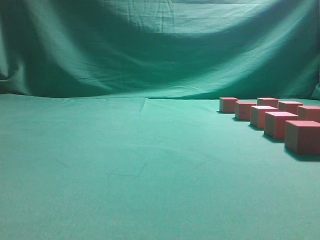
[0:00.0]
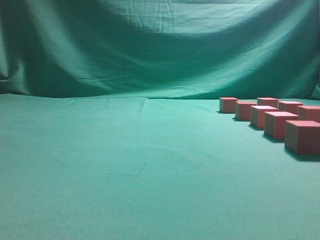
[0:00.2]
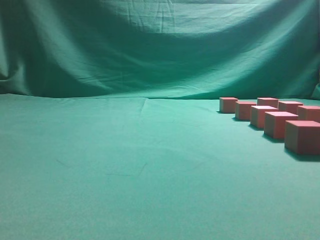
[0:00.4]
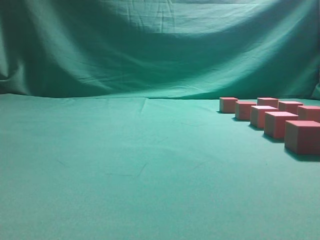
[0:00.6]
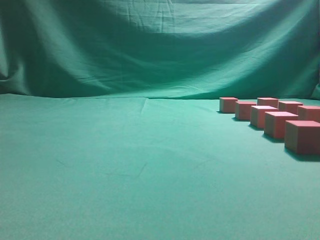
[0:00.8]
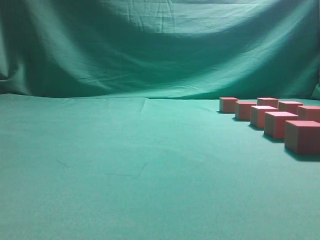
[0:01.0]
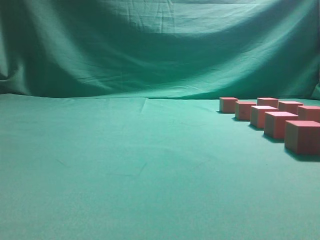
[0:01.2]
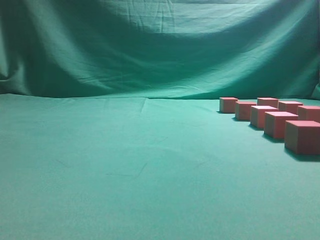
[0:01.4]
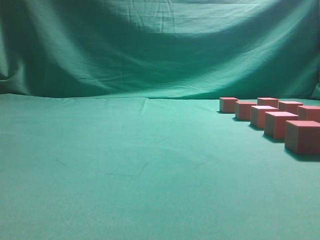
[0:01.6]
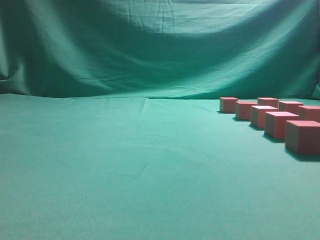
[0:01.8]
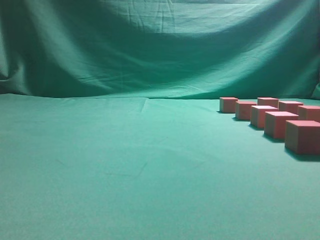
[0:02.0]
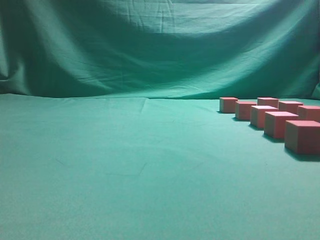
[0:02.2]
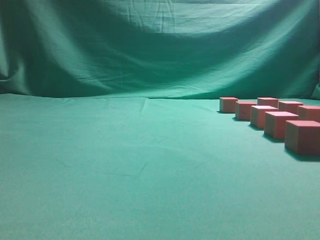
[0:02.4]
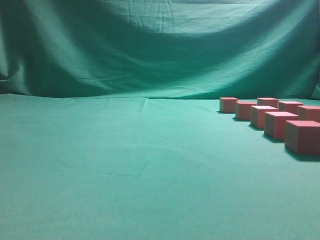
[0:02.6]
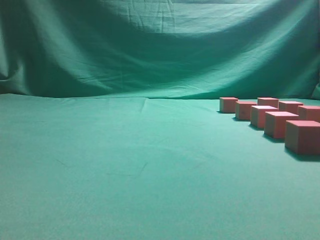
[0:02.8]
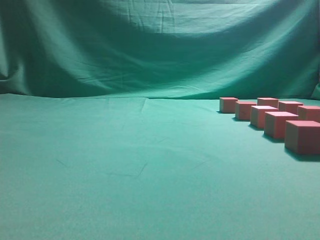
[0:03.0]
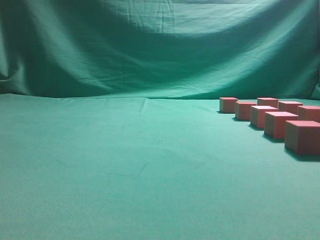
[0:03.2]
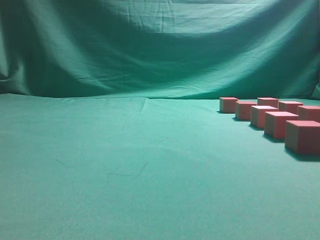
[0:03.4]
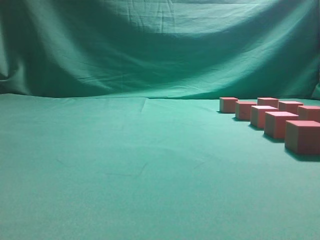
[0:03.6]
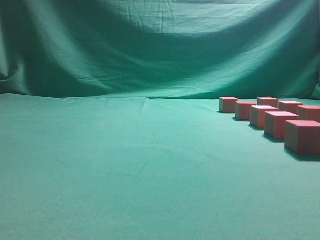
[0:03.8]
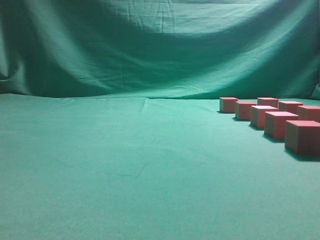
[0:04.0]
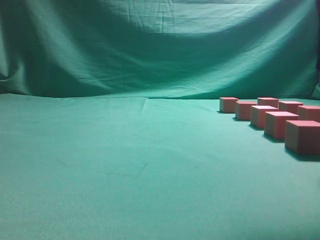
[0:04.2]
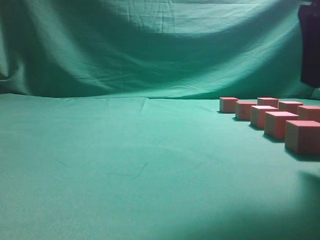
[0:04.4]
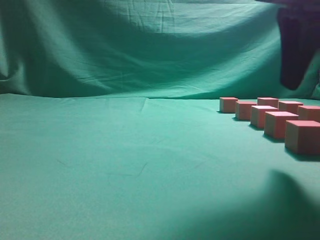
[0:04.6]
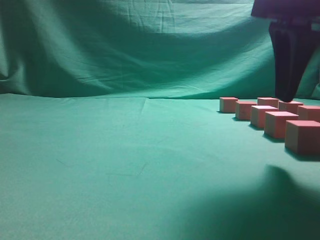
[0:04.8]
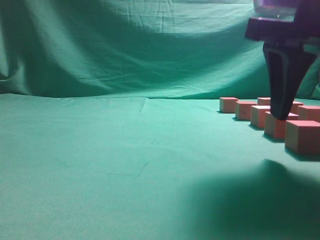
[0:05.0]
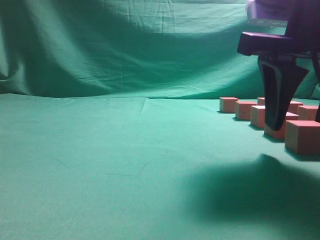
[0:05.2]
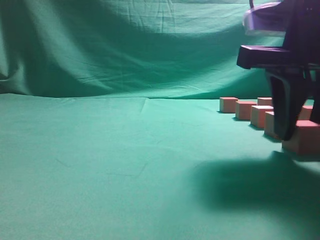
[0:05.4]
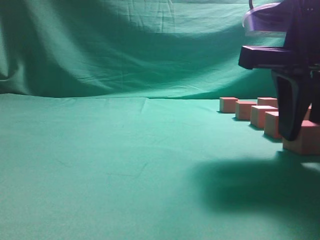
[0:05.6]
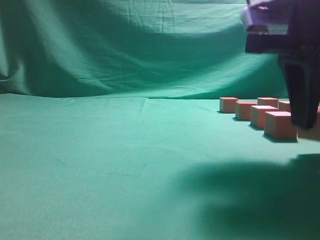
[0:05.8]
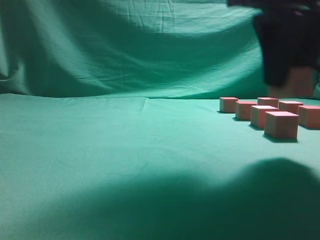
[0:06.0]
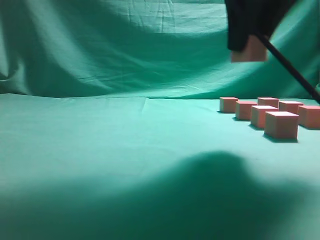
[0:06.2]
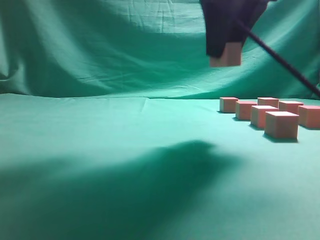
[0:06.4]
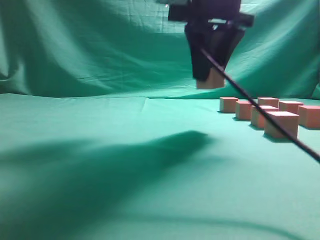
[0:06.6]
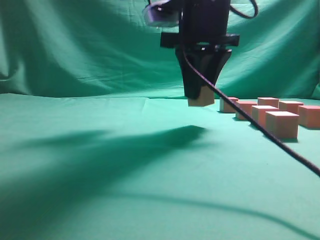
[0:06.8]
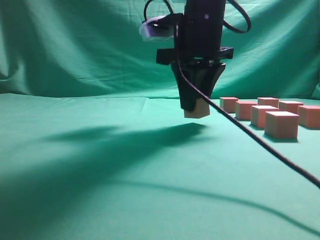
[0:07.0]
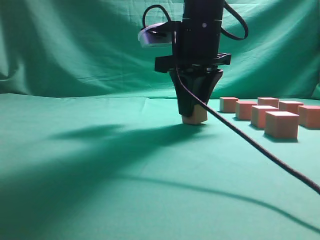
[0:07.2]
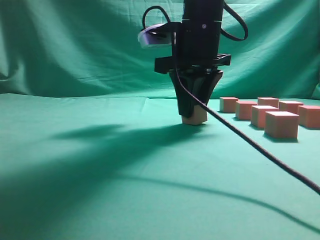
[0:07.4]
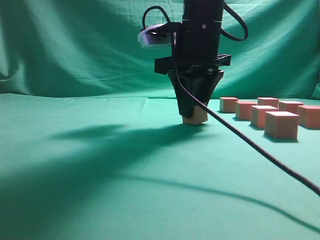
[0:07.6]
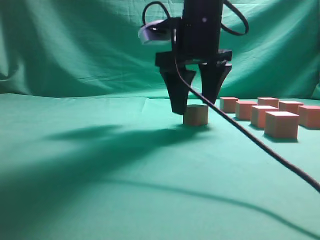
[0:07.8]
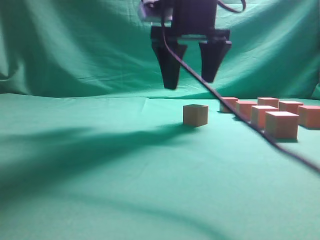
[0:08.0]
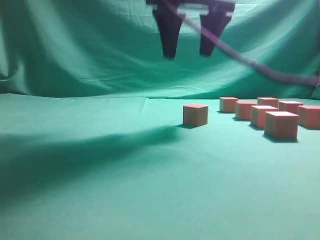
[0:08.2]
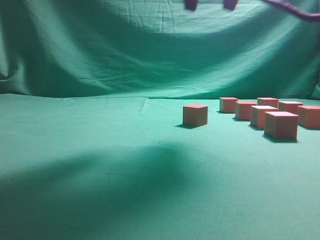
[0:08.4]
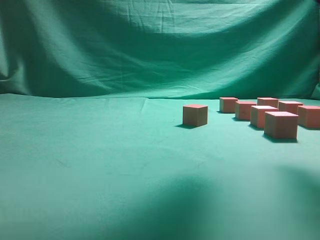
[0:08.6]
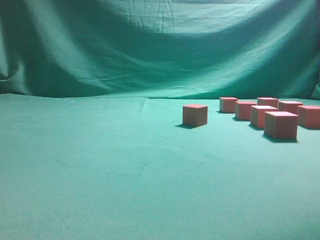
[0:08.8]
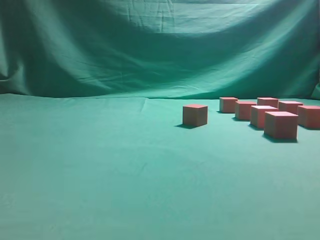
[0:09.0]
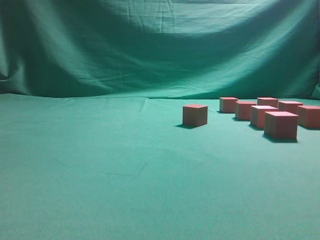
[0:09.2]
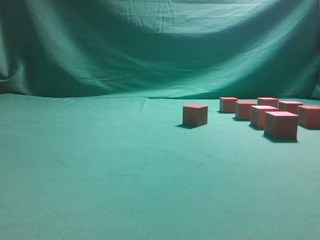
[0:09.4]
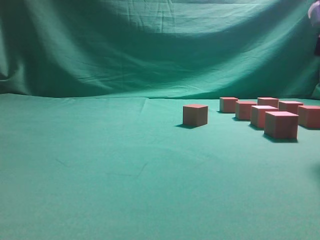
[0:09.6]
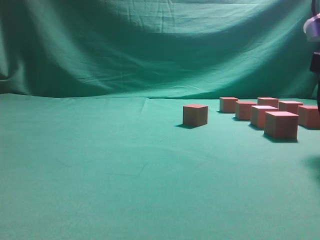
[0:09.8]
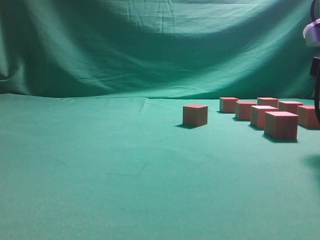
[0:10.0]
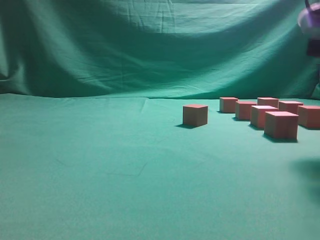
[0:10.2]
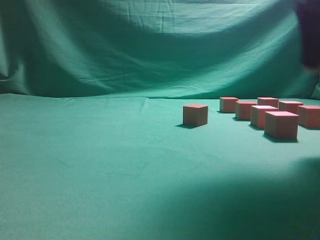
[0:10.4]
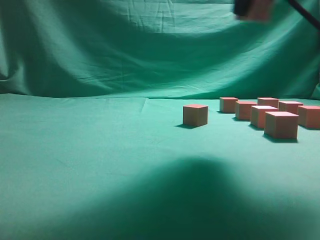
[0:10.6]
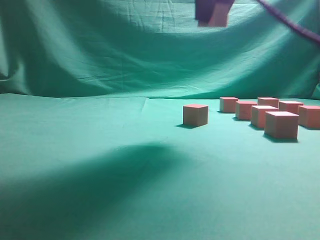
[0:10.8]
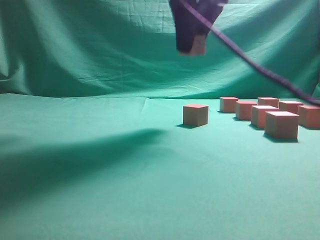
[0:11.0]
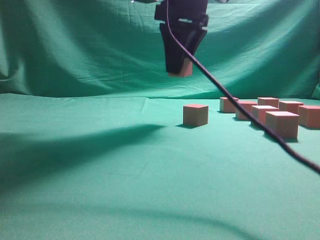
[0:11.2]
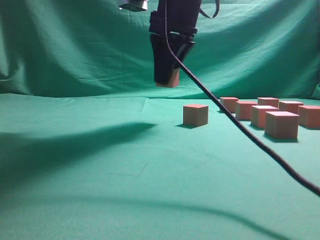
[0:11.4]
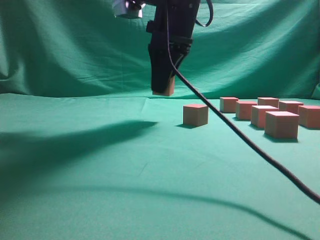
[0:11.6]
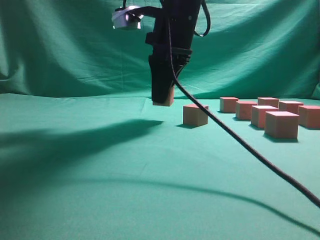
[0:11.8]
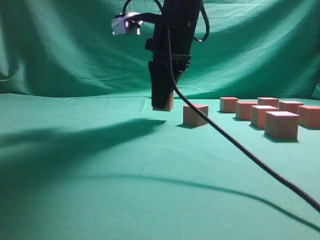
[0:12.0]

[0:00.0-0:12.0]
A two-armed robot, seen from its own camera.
Task of the whole recording: pick up the multiple cubes in two columns one by one and place them in another position on the table.
Step, 0:00.0 to 0:05.8: Pick up the block on the table.
Step, 0:06.0 to 0:08.2: Place the block at the correct position to assemble the letter S.
Step, 0:08.4 to 0:10.2: Pick up the block on the table.
0:03.0 to 0:04.4: The right gripper moves forward, to the left and downward, approximately 15 cm.
0:04.4 to 0:06.0: The right gripper ends up about 5 cm from where it was, and opens and closes again.
0:06.0 to 0:07.6: The right gripper travels forward and to the left by roughly 15 cm.
0:07.6 to 0:09.0: The right gripper heads to the right, backward and upward, covering about 25 cm, and opens up.
0:09.0 to 0:10.4: The right gripper moves approximately 10 cm downward and comes back, and closes up.
0:10.4 to 0:12.0: The right gripper goes about 20 cm to the left and forward.

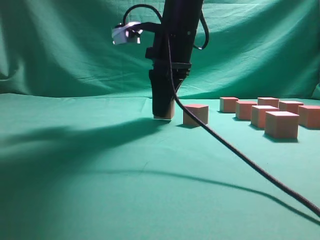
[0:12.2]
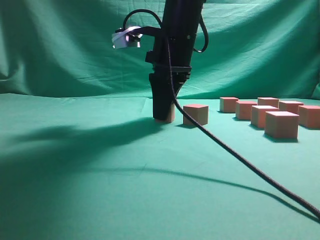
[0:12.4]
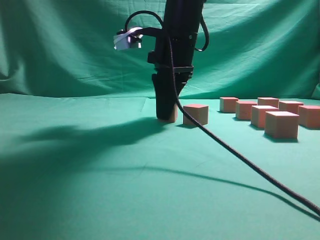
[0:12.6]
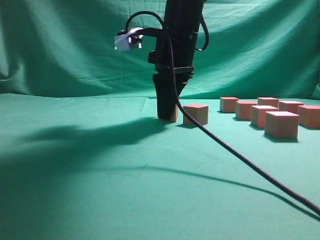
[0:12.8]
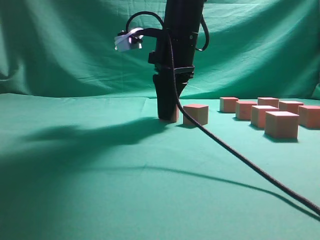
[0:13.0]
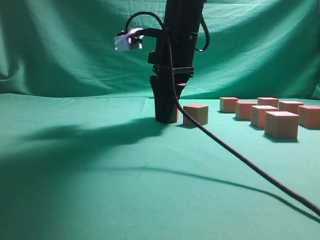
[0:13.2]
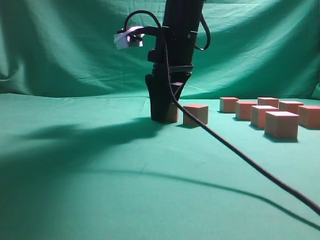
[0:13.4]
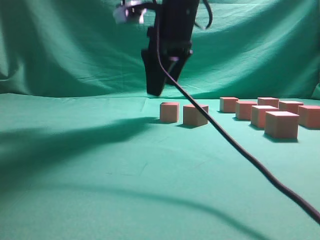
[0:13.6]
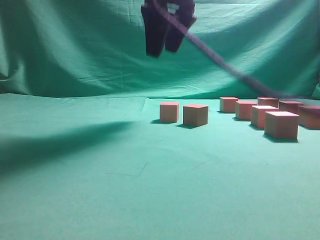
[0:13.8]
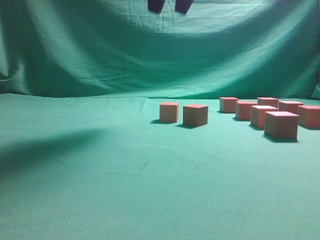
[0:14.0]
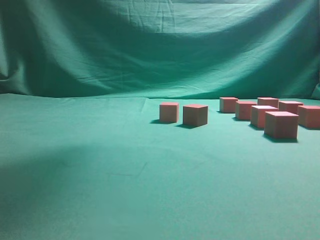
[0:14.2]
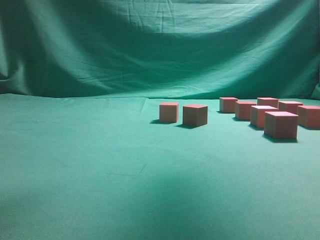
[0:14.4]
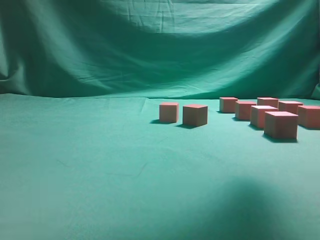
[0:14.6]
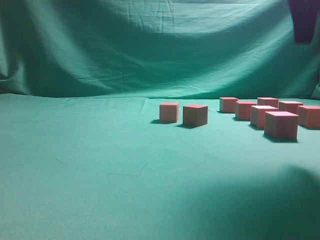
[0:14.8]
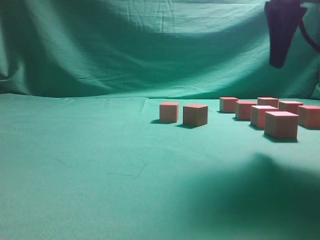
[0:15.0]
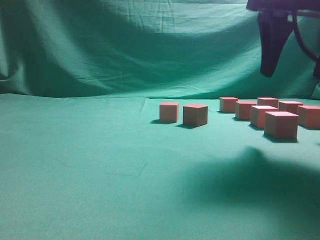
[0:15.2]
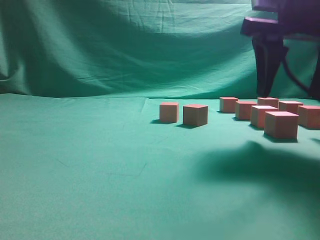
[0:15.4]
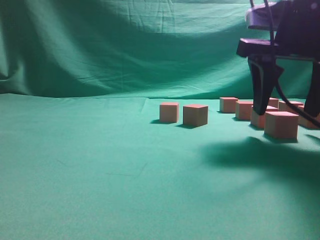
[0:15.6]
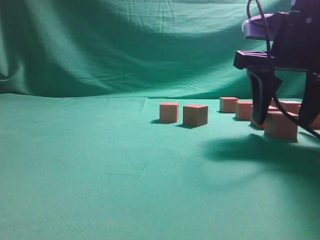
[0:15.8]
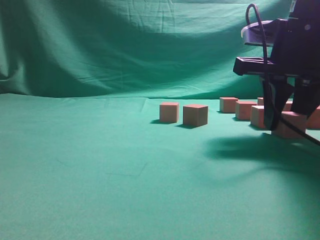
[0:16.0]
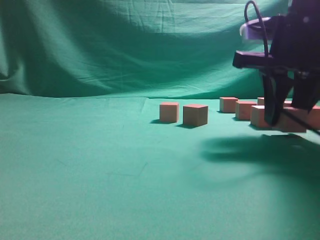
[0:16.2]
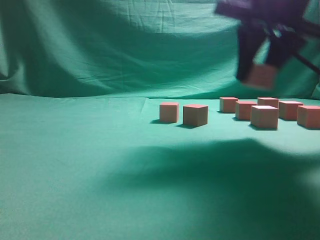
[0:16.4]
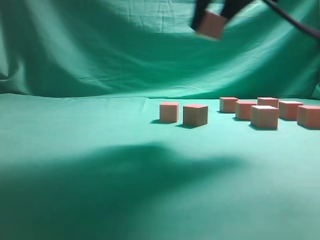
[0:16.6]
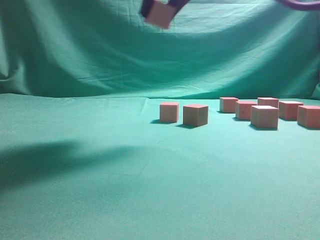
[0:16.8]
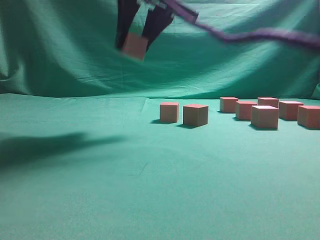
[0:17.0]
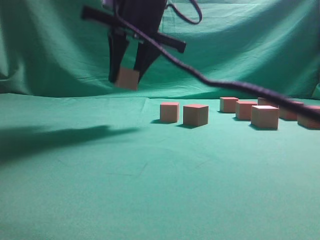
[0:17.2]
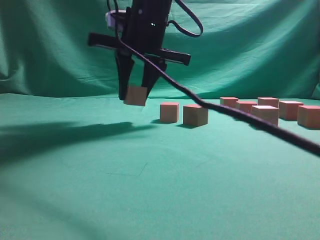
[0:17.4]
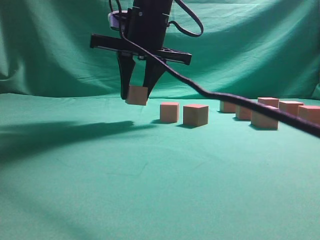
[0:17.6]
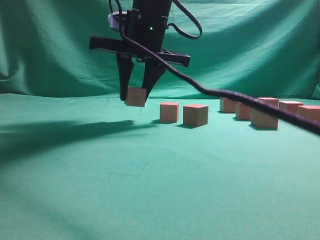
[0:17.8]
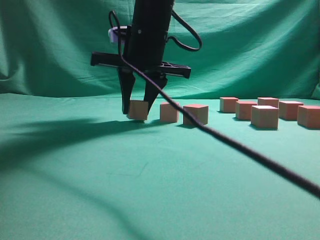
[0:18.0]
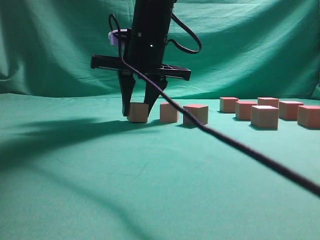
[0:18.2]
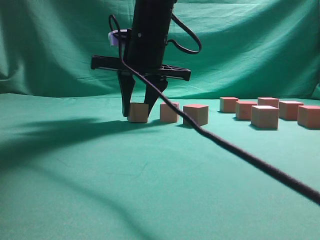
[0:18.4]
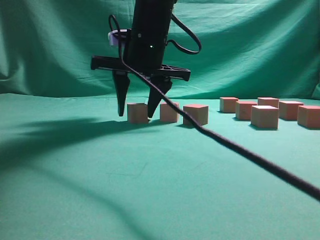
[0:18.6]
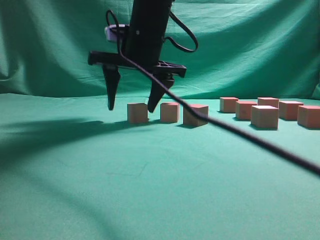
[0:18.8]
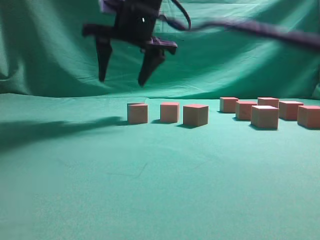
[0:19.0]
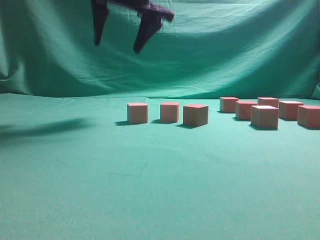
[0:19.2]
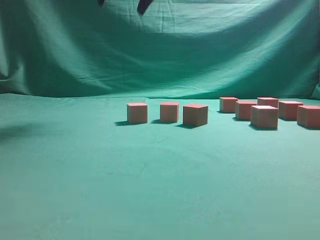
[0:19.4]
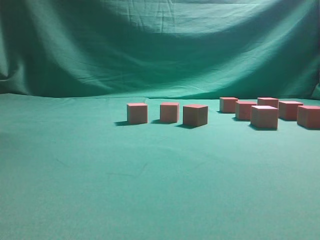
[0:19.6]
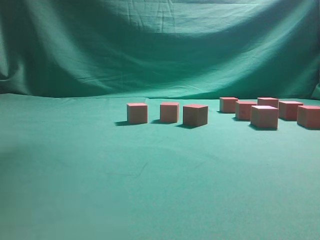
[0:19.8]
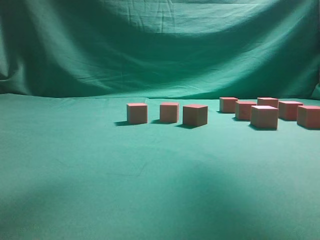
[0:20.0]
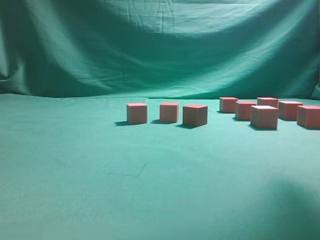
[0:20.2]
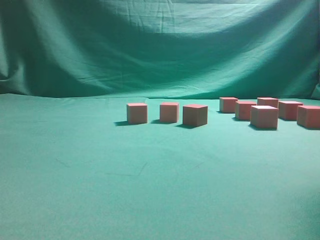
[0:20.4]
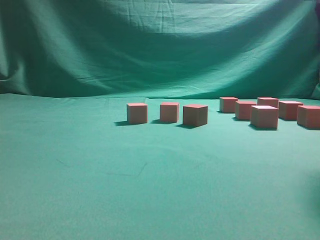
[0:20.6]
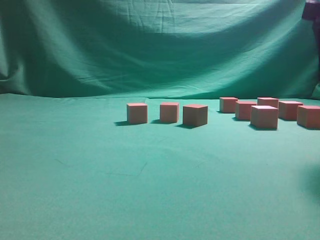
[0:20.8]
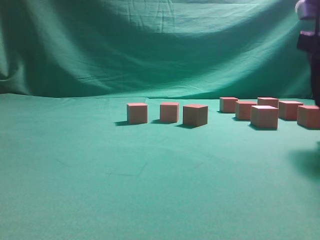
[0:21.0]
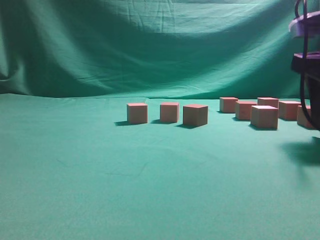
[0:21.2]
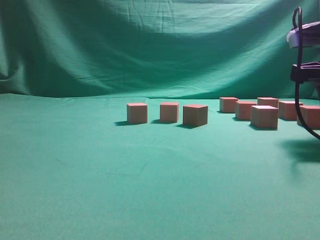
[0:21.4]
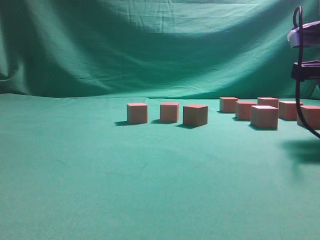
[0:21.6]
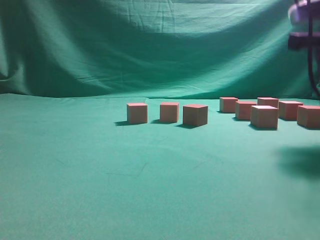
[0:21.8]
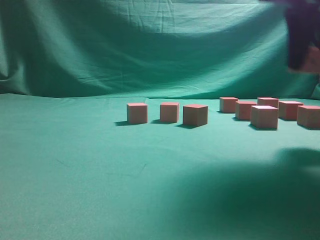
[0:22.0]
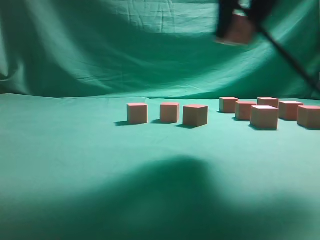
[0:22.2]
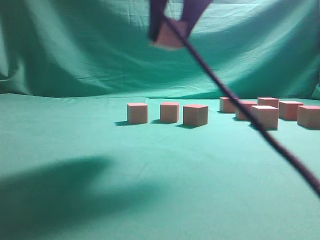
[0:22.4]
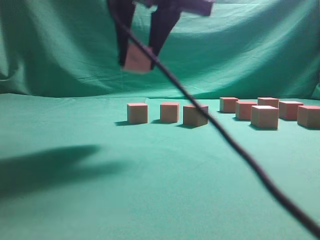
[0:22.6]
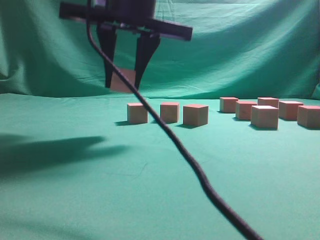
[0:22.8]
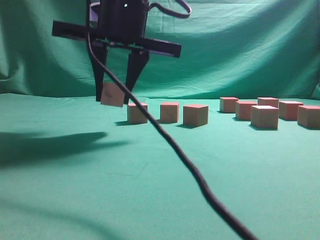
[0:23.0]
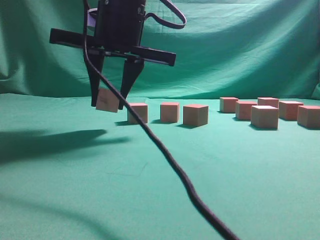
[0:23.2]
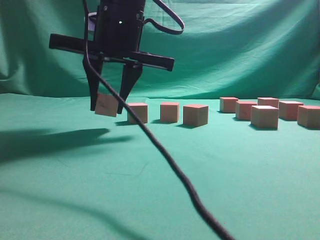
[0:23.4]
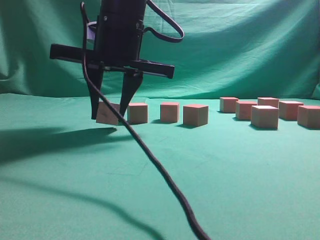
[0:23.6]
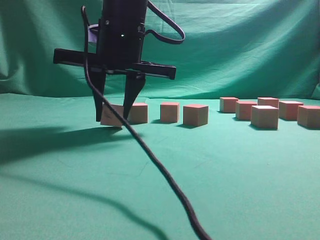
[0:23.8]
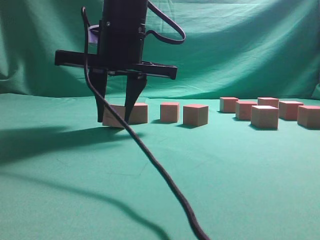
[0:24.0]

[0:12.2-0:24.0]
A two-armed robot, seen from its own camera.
Task of the whole recording: pick up the multiple cubes in two columns one by one and place them in another position on the table.
Step, 0:14.0 to 0:16.2: Pick up the block on the table.
Step, 0:16.4 to 0:19.2: Place the block at the correct position to assemble the letter S.
Step, 0:19.4 to 0:21.8: Pick up the block on the table.
0:12.2 to 0:13.6: The right gripper opens up.
0:13.6 to 0:15.2: The right gripper is displaced to the right and backward by roughly 20 cm, and reaches roughly 20 cm upward, then returns.
0:15.2 to 0:16.6: The right gripper moves to the left and upward, some 10 cm, and closes up.
0:16.6 to 0:18.2: The right gripper heads to the left, downward and forward, covering about 20 cm.
0:18.2 to 0:19.6: The right gripper shifts approximately 20 cm upward, and opens up.
0:19.6 to 0:21.0: The right gripper travels to the right and downward by roughly 30 cm.
0:21.0 to 0:22.6: The right gripper moves to the left, some 25 cm, and closes its fingers.
0:22.6 to 0:24.0: The right gripper heads downward, covering some 5 cm.
